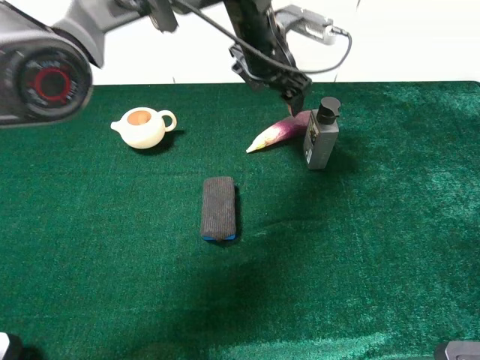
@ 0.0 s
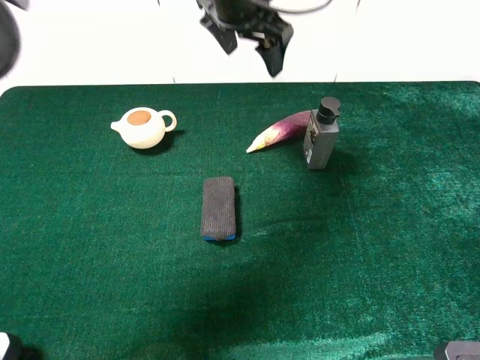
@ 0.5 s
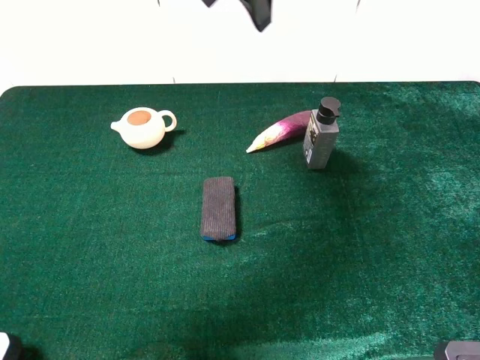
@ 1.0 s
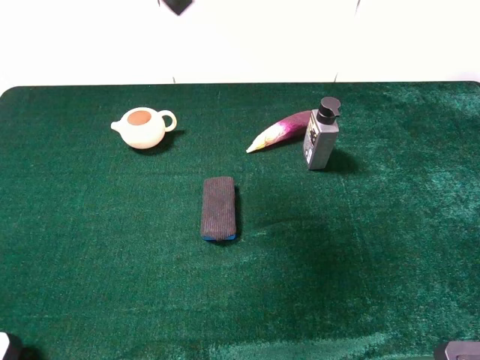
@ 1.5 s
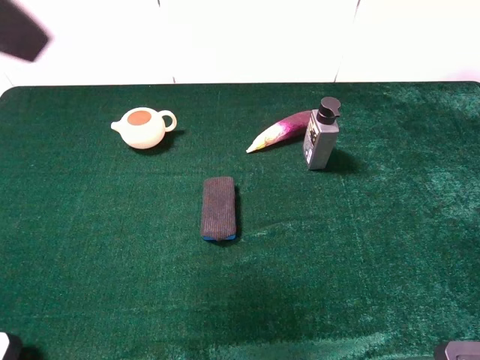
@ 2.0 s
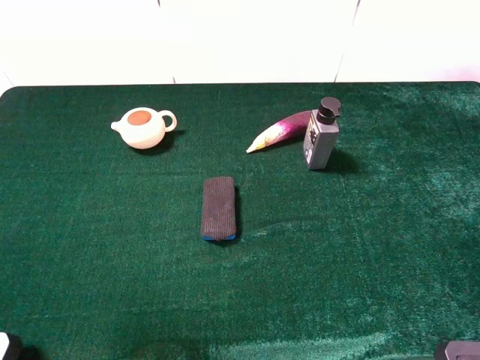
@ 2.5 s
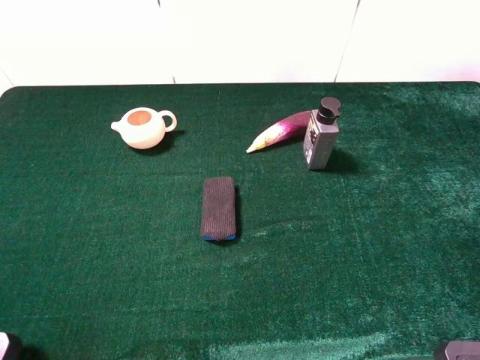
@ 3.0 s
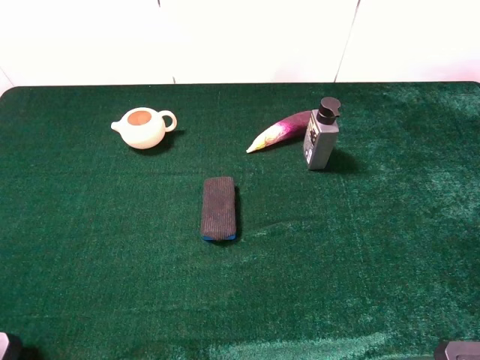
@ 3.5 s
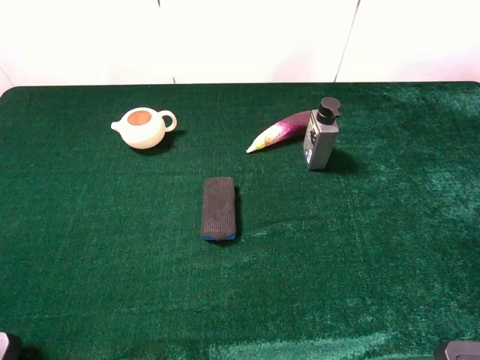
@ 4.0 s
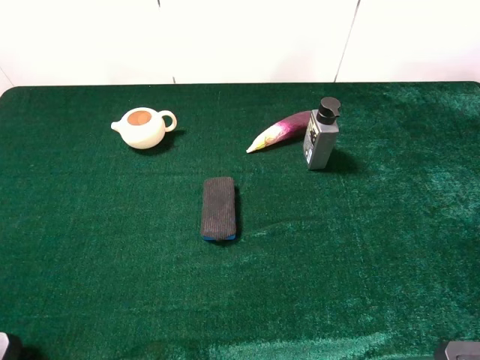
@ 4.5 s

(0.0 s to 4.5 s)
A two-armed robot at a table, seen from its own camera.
Task of the whole recording: the gripper move the object.
0.0 s - 2.0 s: The left gripper travels backward, to the left and upward by approximately 40 cm.
2.0 s - 4.5 s: The left gripper goes some 25 cm backward, downward and to the left.
